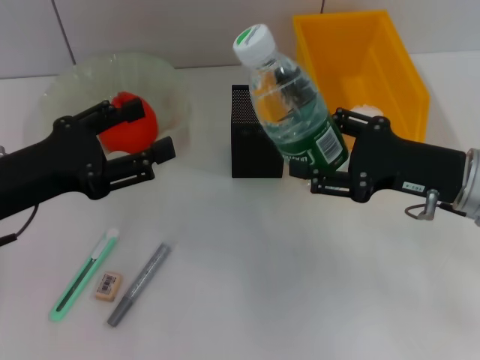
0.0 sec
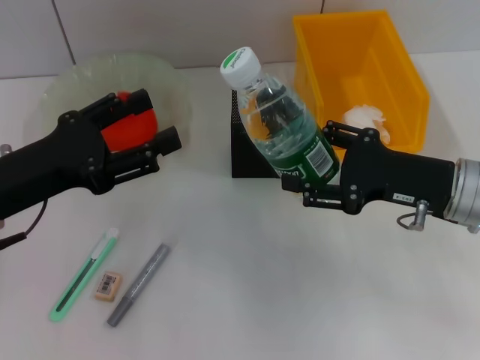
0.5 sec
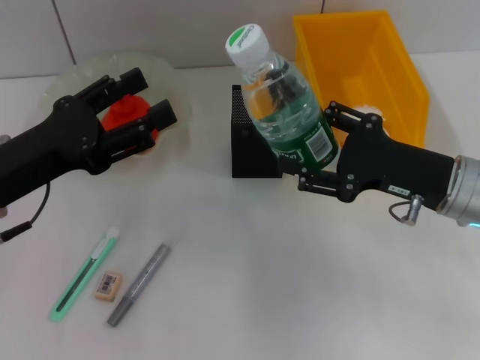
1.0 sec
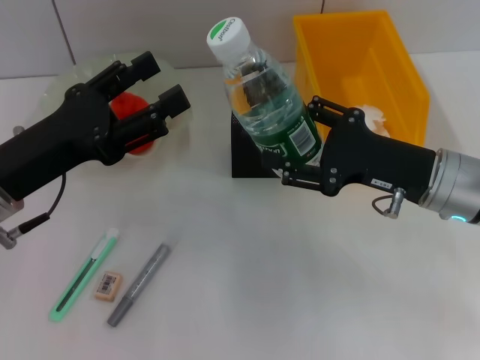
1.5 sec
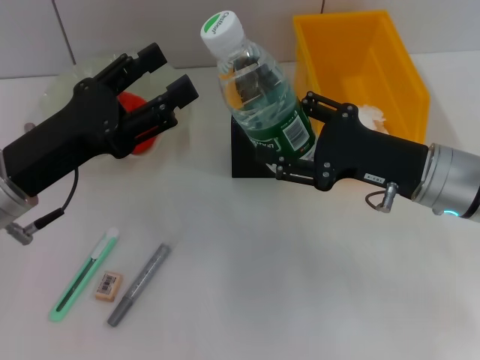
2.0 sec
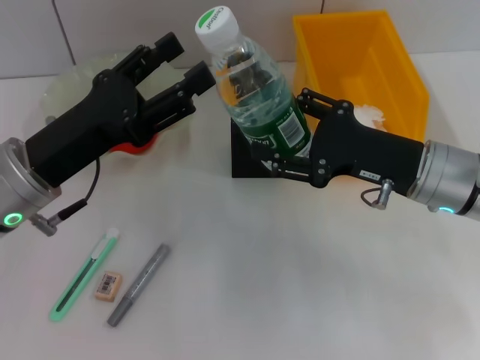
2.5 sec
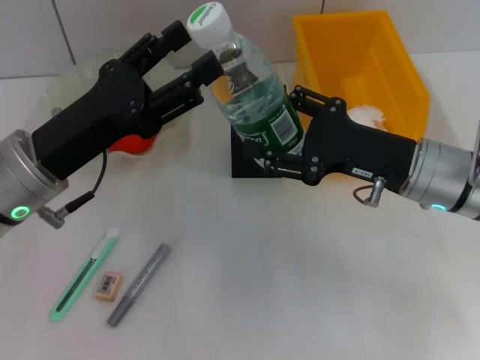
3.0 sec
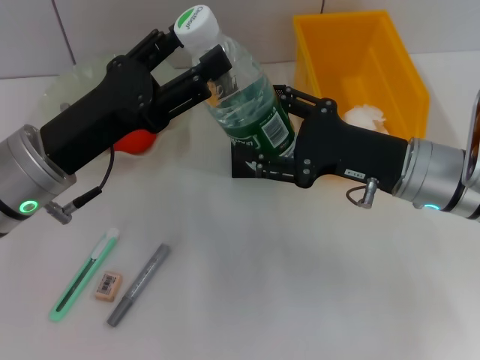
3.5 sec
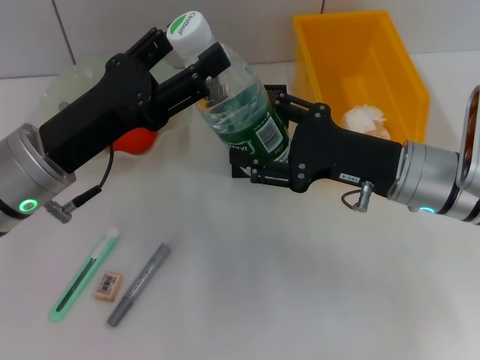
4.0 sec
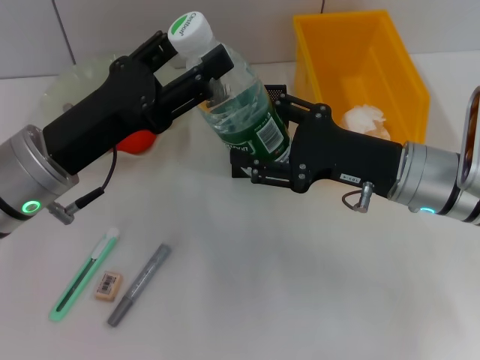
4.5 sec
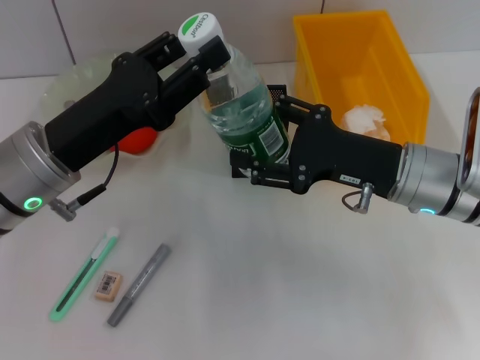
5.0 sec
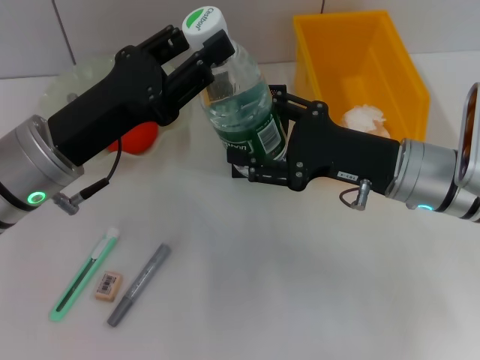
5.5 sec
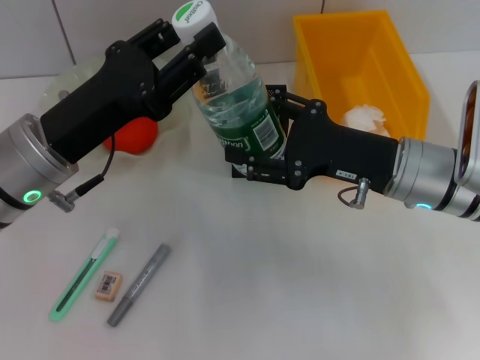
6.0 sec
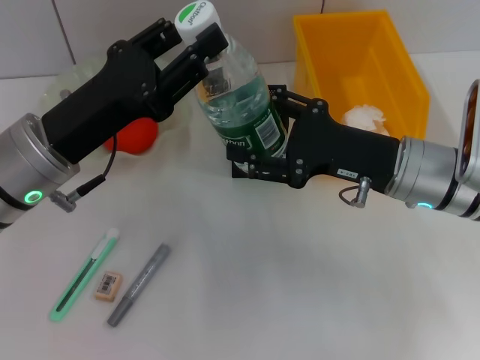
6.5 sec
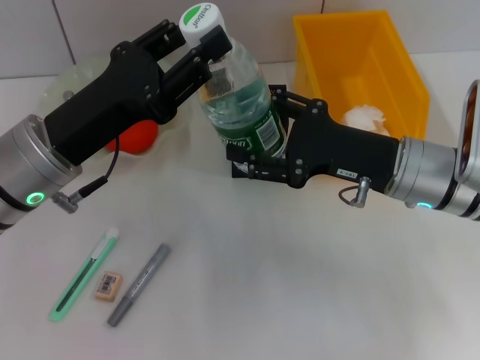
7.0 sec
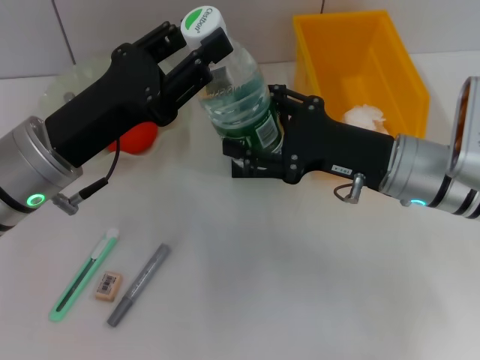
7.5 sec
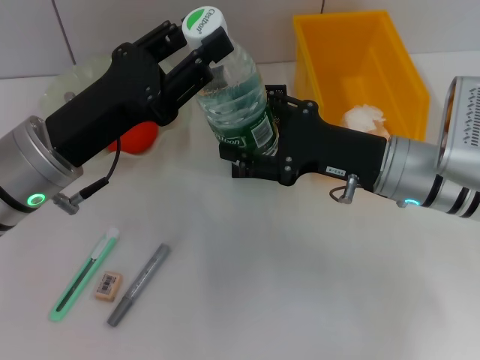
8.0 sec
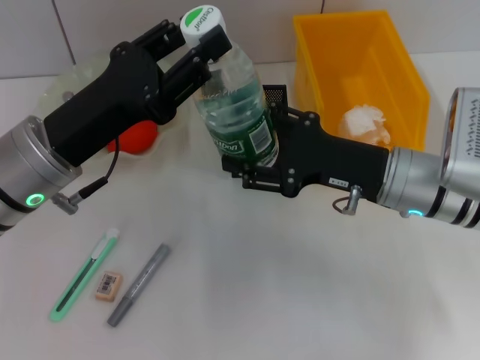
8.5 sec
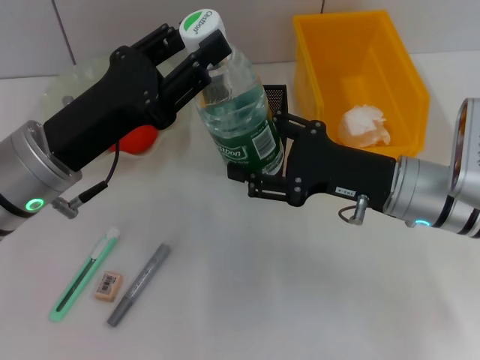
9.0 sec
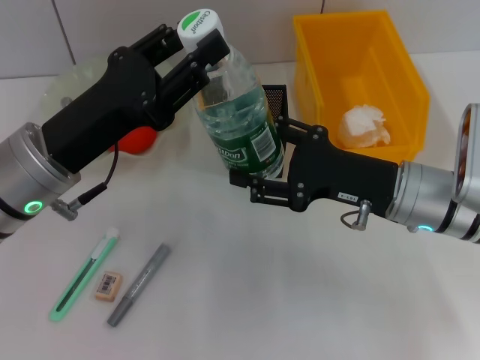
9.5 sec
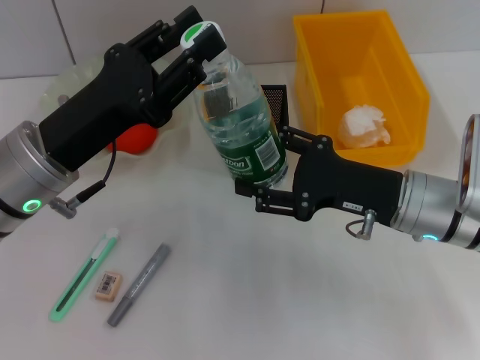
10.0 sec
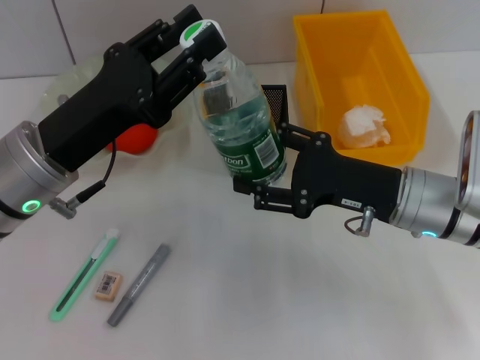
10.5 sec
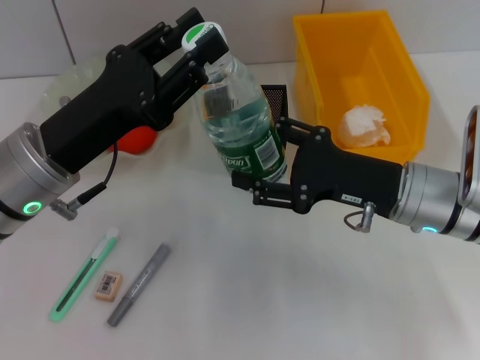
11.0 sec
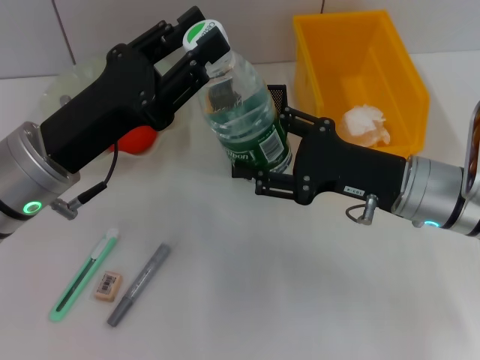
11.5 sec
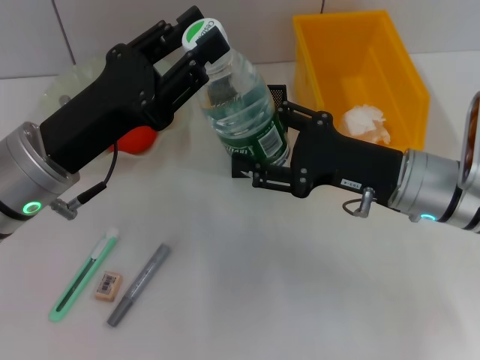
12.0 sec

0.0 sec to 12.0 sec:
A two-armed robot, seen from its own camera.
0.0 sec to 2.0 sec: The grippers make only small movements.
2.0 sec to 4.0 sec: The grippers make only small movements.
4.0 sec to 6.0 sec: The left gripper closes.
6.0 sec to 8.0 sec: The two grippers keep their place.
8.0 sec to 12.0 sec: There are only small adjustments of the grippers.

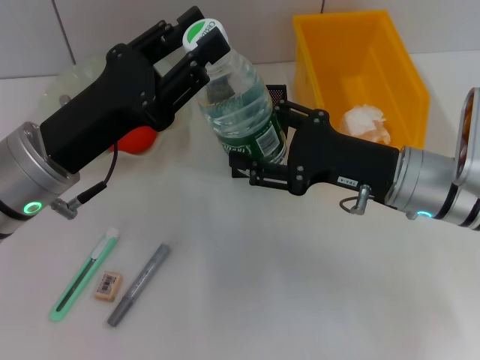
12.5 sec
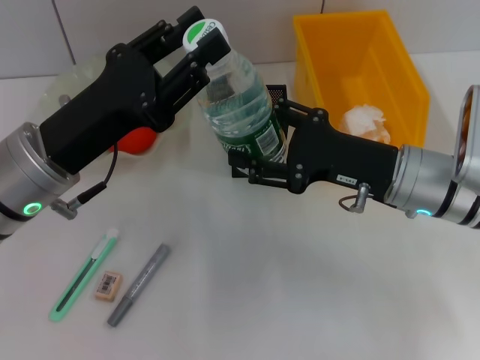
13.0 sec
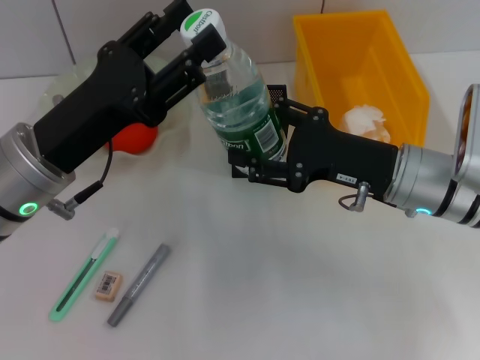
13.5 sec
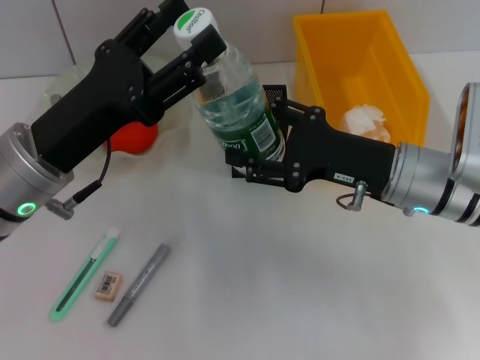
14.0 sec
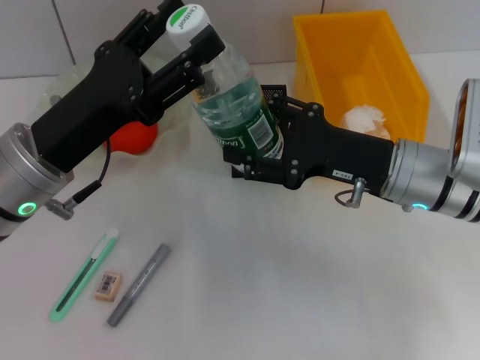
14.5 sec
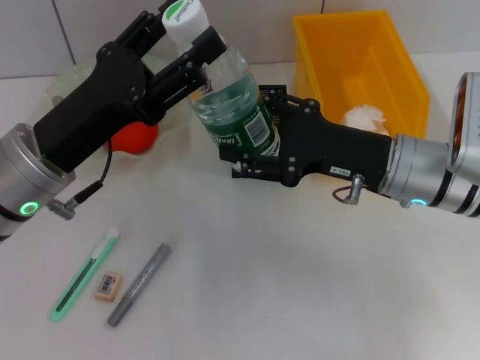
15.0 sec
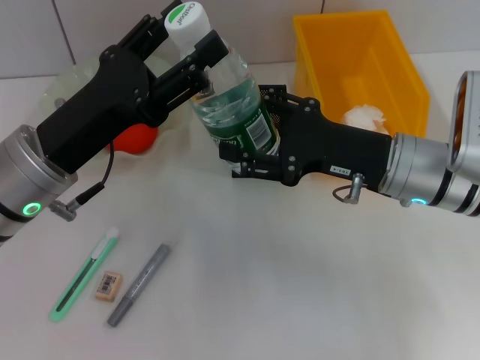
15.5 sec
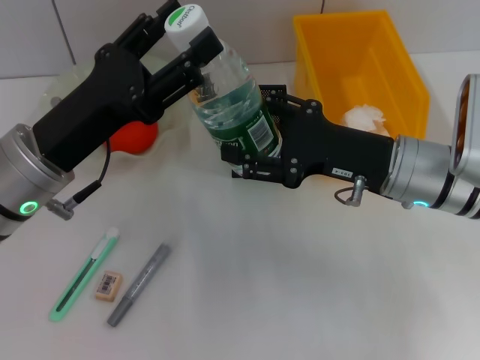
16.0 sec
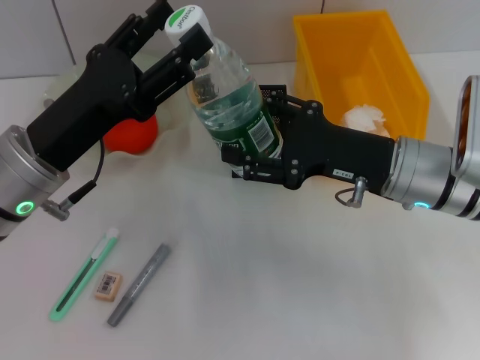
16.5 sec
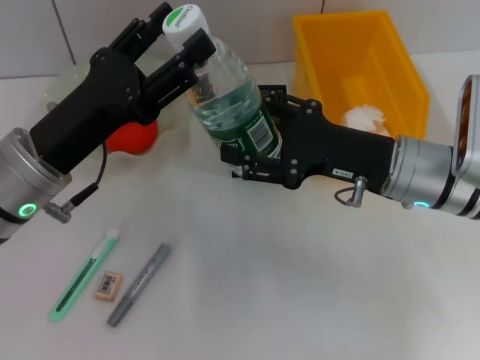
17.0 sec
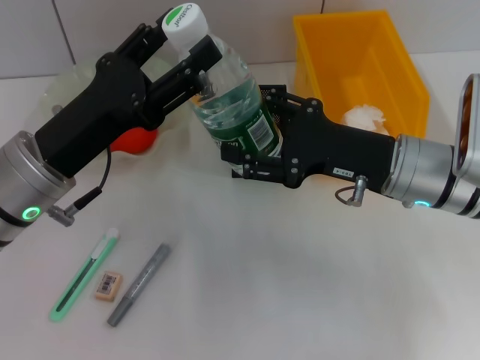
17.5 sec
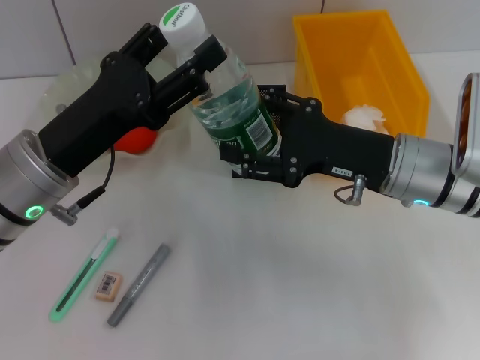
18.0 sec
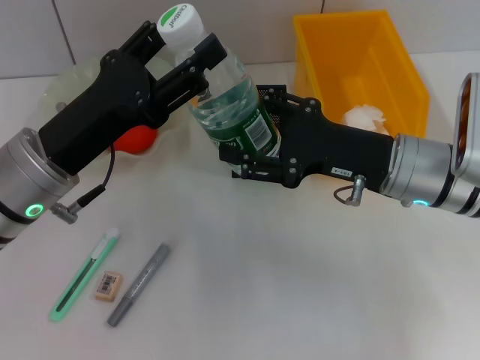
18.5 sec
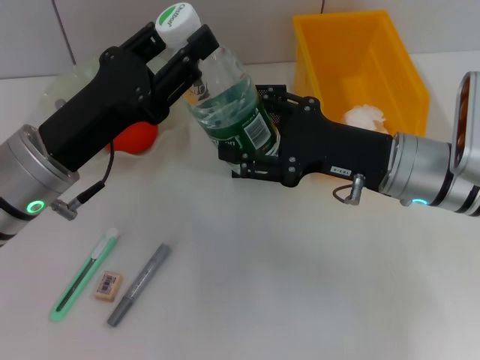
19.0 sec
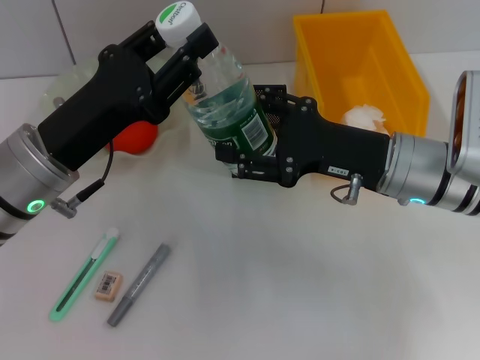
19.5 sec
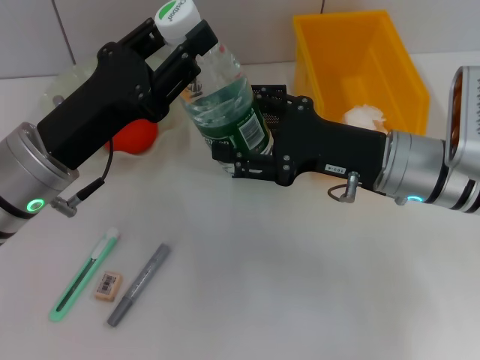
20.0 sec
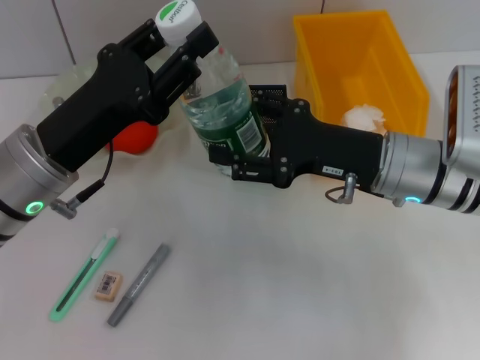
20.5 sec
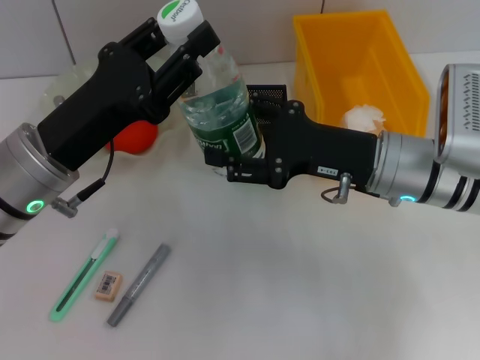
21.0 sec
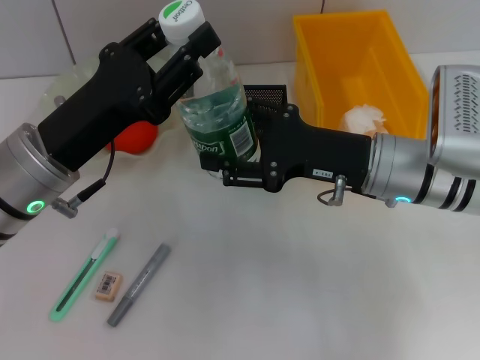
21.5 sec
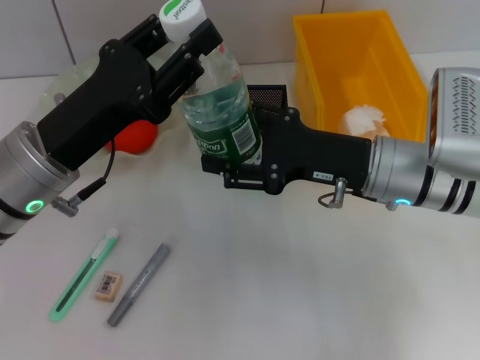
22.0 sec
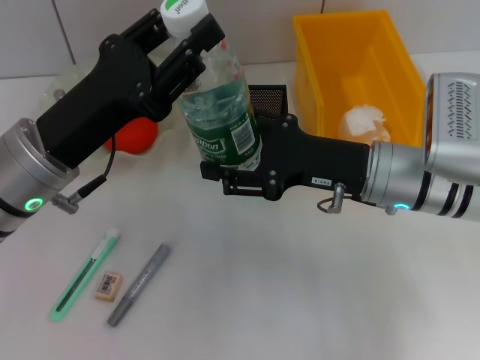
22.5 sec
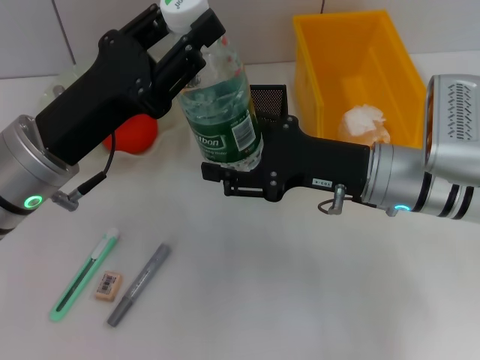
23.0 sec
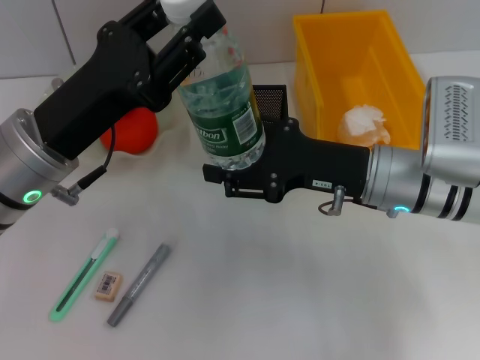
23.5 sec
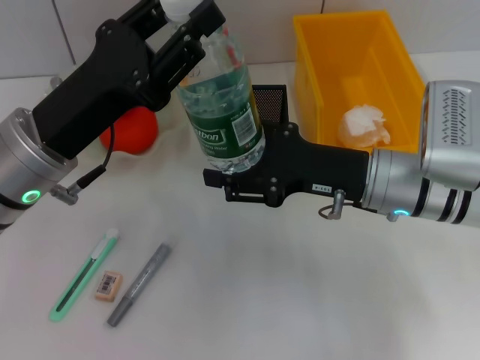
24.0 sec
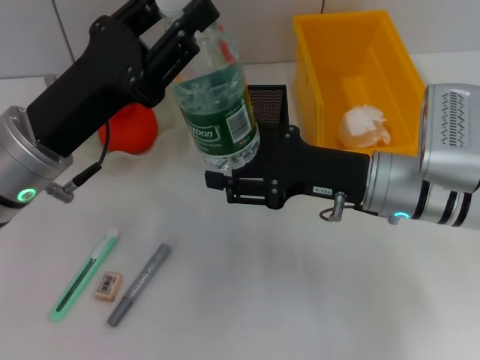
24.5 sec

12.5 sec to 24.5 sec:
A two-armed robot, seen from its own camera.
Step, 12.5 sec to 23.0 sec: Pass the water bottle from the right hand to the left hand.
12.5 sec to 14.5 sec: The left gripper opens up.
14.5 sec to 18.5 sec: Neither gripper changes place.
18.5 sec to 20.5 sec: The left gripper closes its fingers.
20.5 sec to 22.5 sec: Both grippers stay put.
22.5 sec to 24.5 sec: Both grippers stay about where they are.

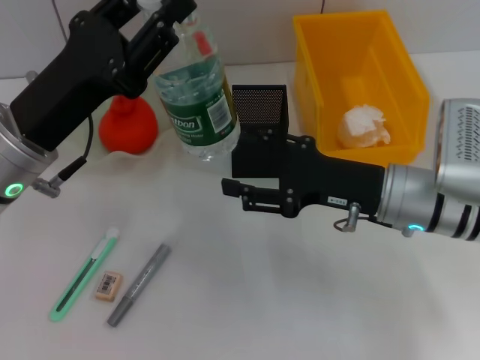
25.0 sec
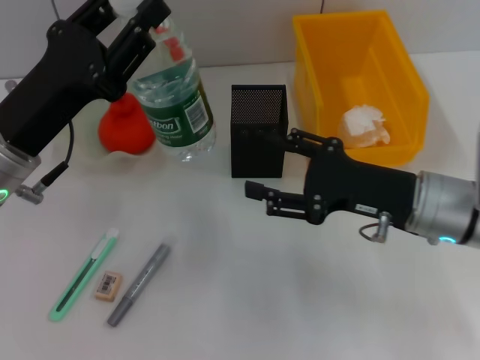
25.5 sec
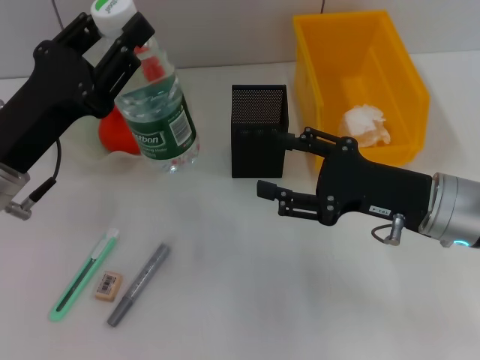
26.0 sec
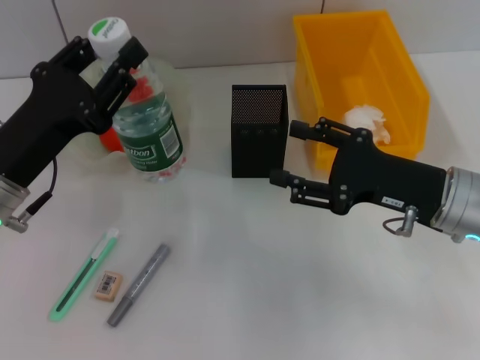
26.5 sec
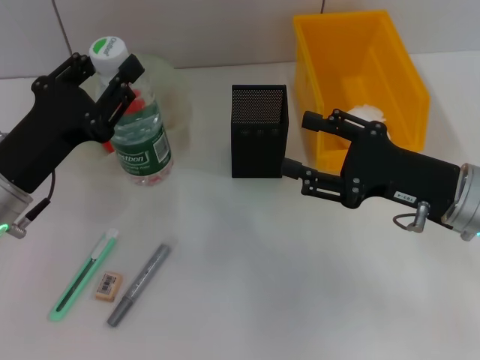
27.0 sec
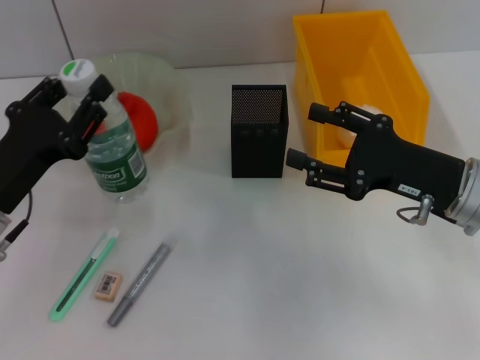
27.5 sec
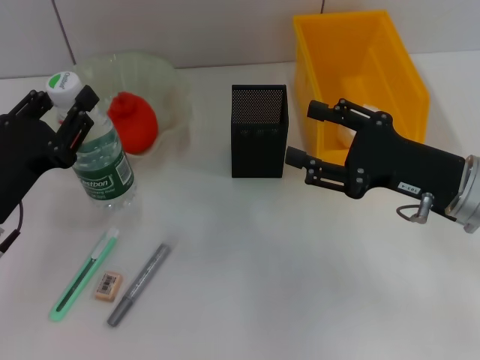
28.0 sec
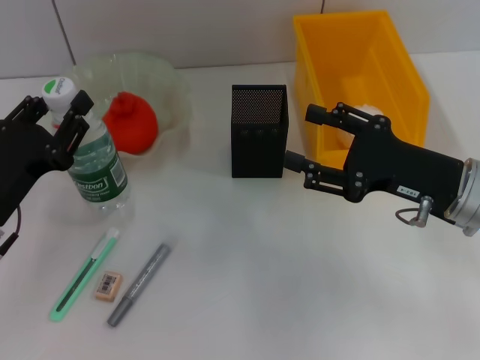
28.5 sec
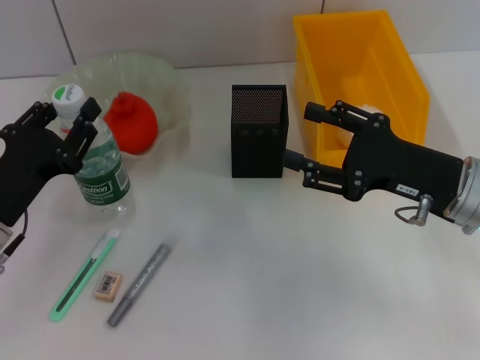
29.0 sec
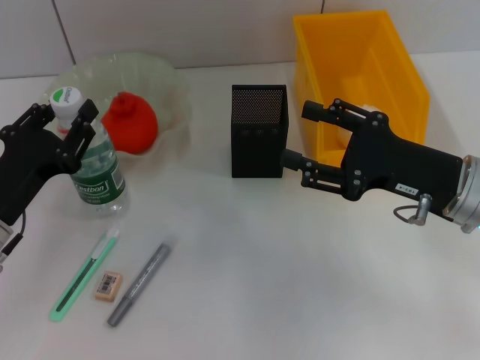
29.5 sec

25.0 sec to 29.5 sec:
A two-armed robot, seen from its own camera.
25.0 sec to 27.0 sec: The right gripper ends up roughly 5 cm from where it was; the left gripper changes place by roughly 5 cm.
27.0 sec to 29.5 sec: The left gripper changes place by approximately 5 cm.
